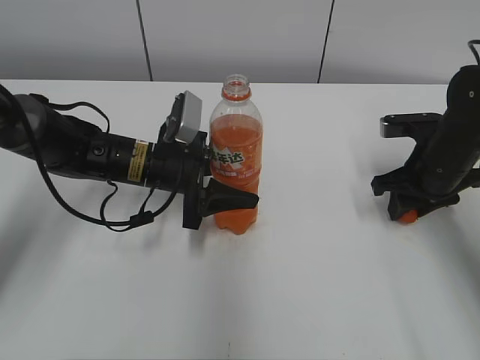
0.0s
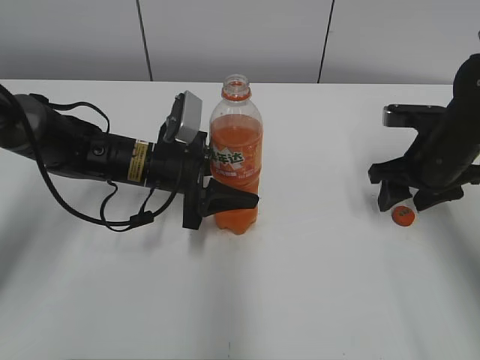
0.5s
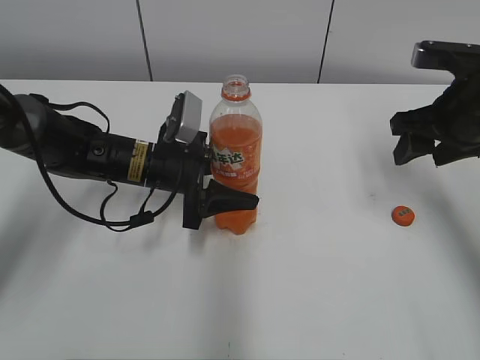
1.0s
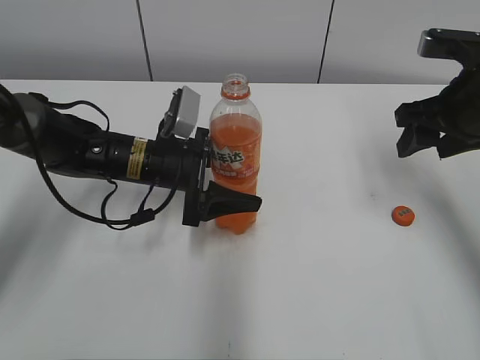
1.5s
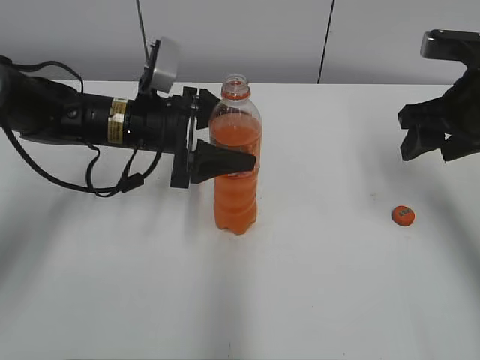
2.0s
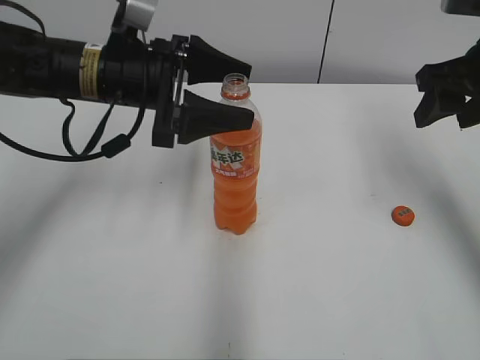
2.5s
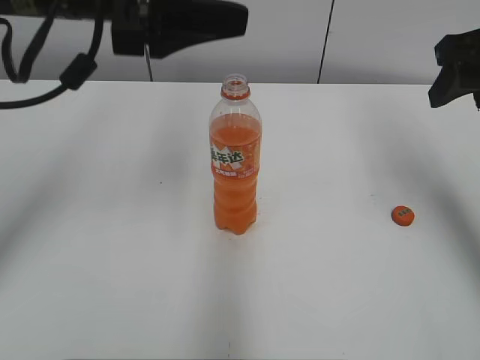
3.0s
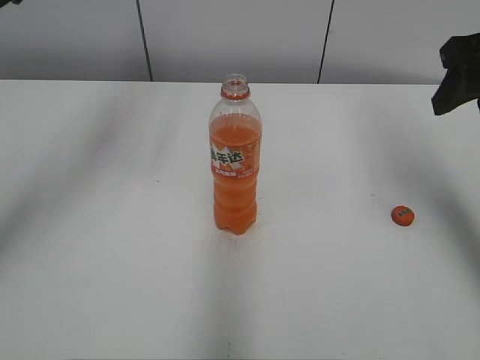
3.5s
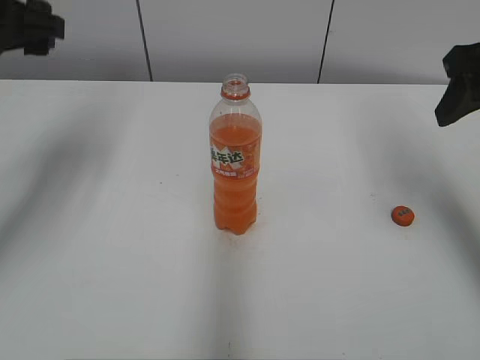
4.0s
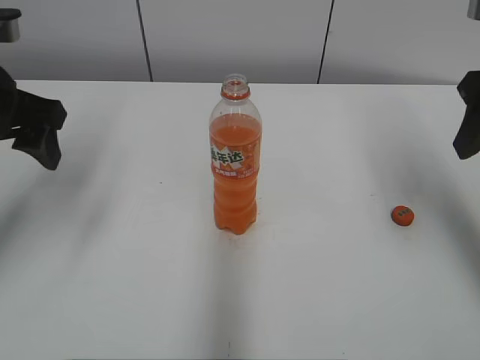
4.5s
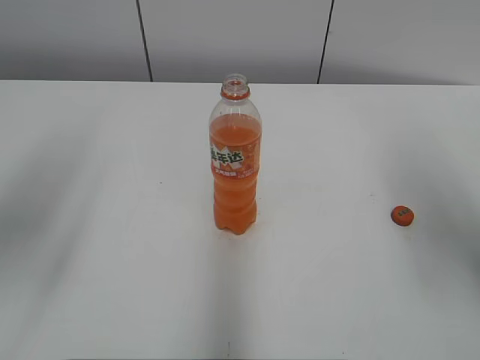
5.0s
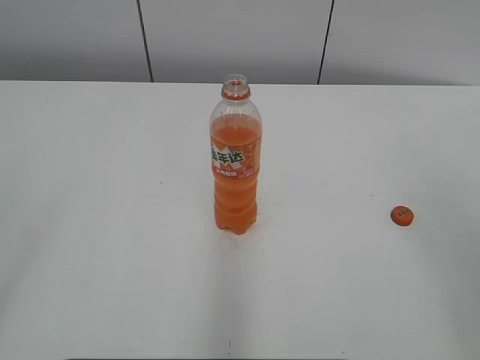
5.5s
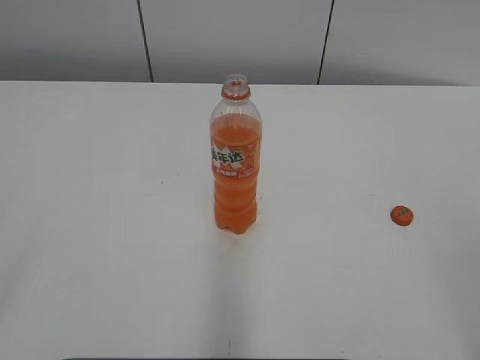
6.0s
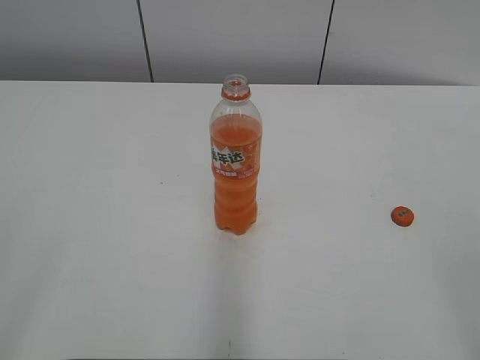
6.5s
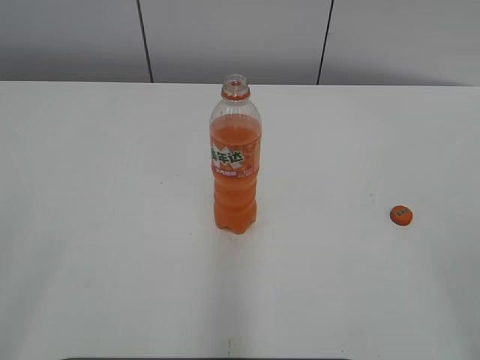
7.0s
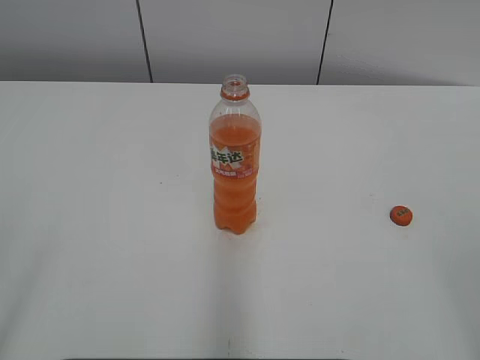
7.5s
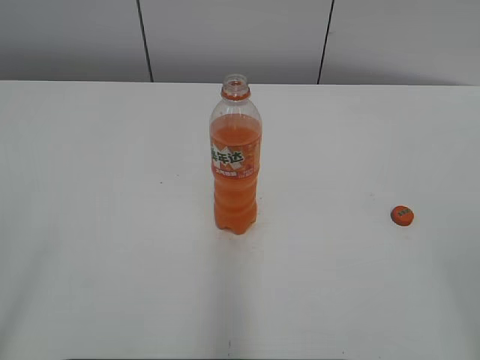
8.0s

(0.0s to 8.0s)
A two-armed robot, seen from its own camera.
0.0s - 2.0s: The right gripper moves upward, roughly 10 cm, and opens. The left gripper moves upward, about 5 cm, and opens up.
2.0s - 4.0s: The right gripper is displaced upward by about 10 cm, while the left gripper shifts about 20 cm upward and to the left.
4.0s - 6.0s: Both grippers travel together backward, approximately 30 cm.
